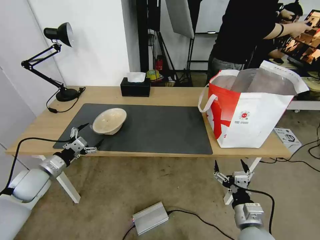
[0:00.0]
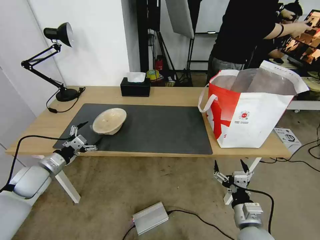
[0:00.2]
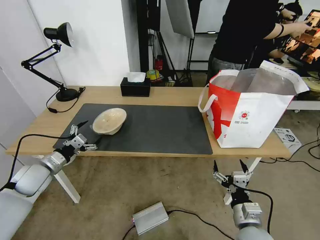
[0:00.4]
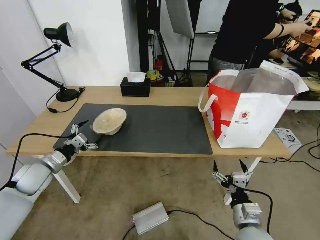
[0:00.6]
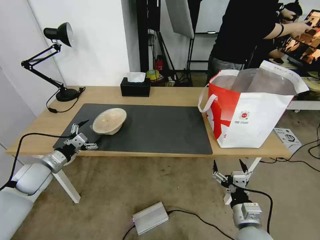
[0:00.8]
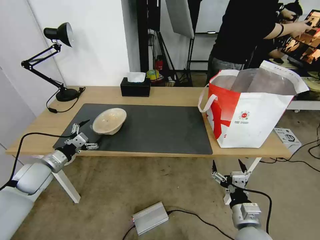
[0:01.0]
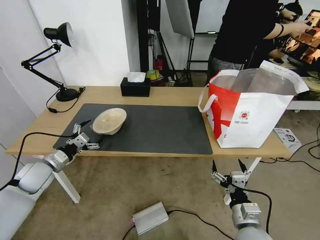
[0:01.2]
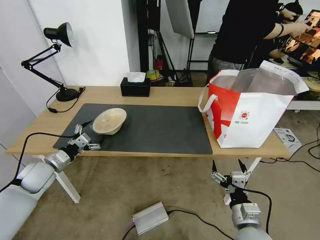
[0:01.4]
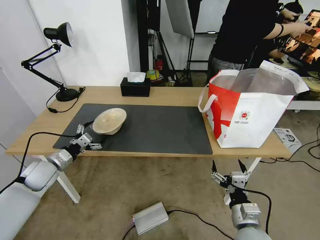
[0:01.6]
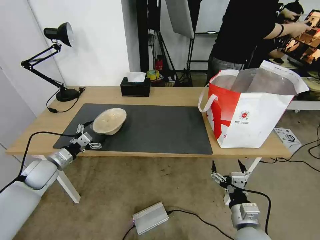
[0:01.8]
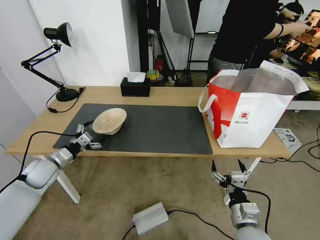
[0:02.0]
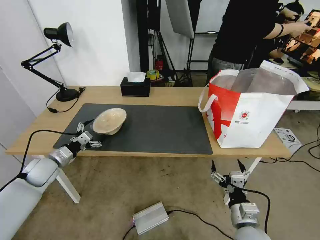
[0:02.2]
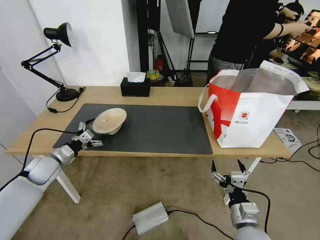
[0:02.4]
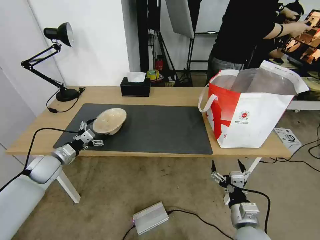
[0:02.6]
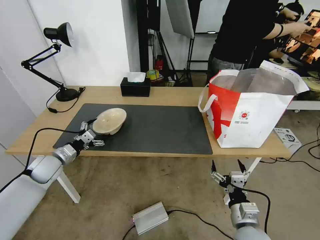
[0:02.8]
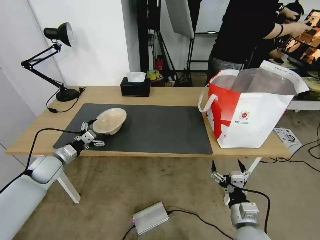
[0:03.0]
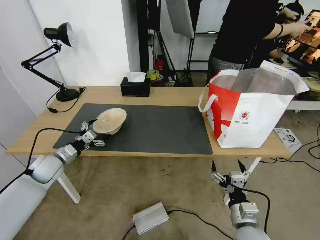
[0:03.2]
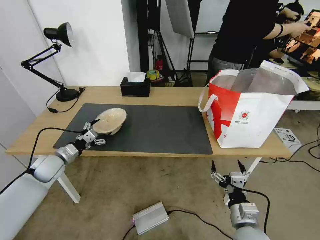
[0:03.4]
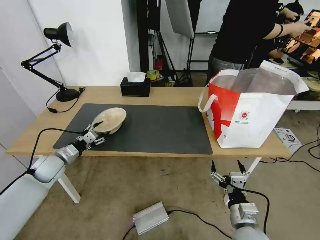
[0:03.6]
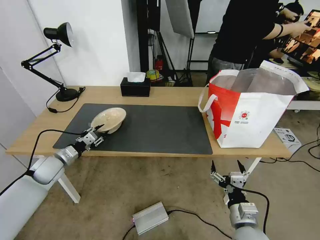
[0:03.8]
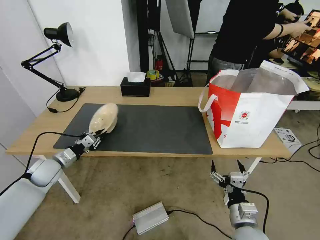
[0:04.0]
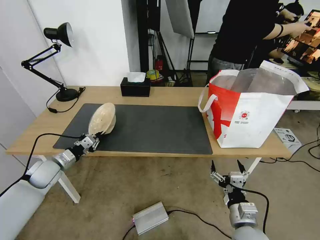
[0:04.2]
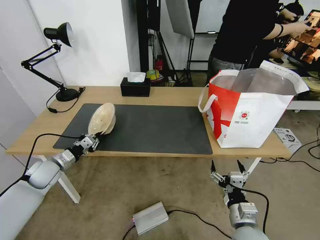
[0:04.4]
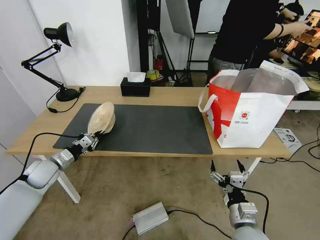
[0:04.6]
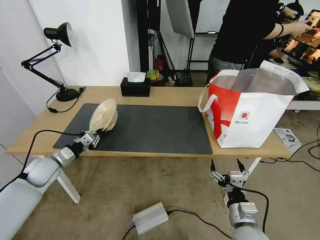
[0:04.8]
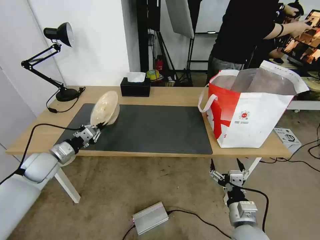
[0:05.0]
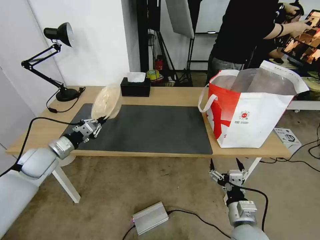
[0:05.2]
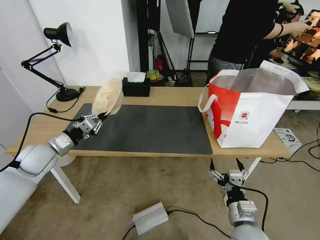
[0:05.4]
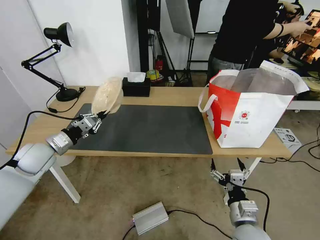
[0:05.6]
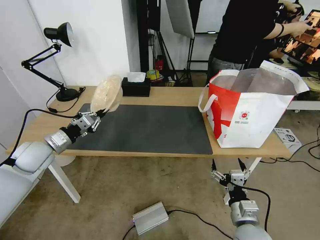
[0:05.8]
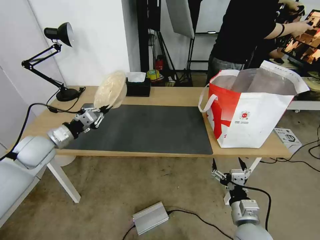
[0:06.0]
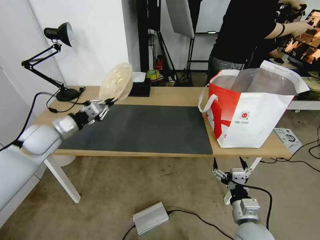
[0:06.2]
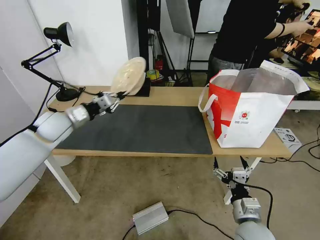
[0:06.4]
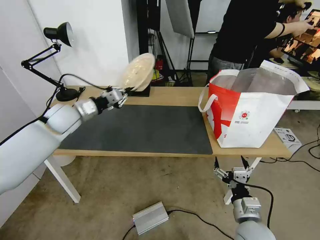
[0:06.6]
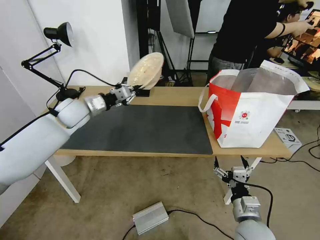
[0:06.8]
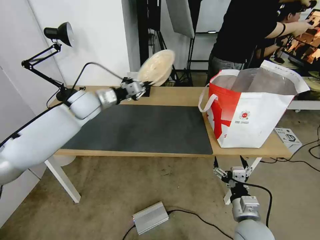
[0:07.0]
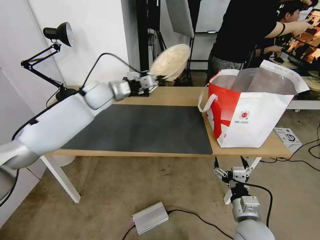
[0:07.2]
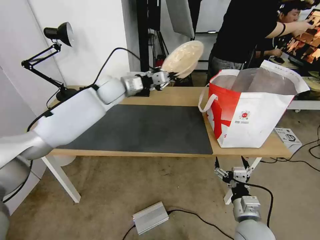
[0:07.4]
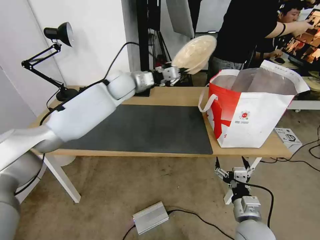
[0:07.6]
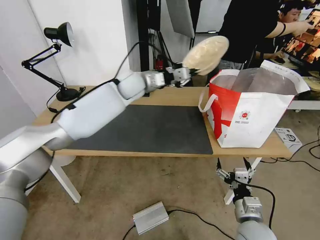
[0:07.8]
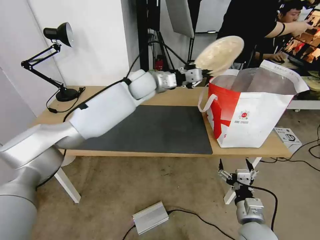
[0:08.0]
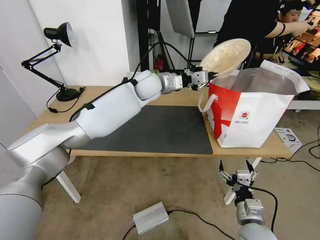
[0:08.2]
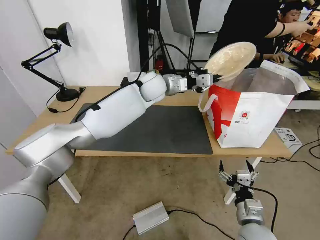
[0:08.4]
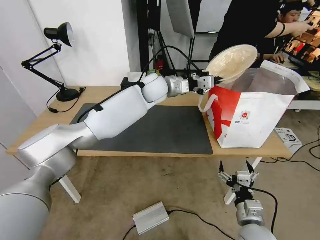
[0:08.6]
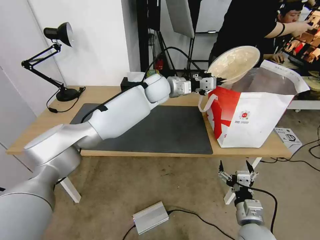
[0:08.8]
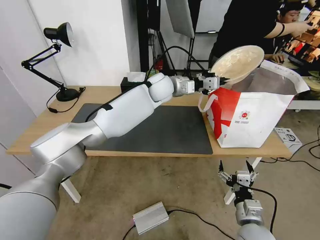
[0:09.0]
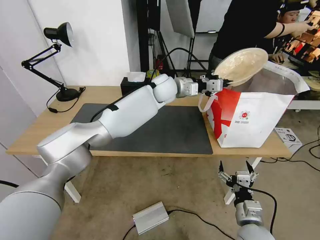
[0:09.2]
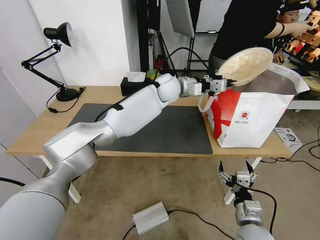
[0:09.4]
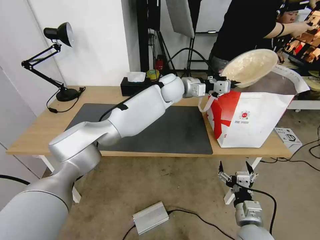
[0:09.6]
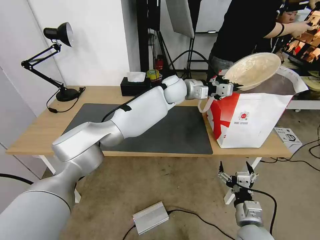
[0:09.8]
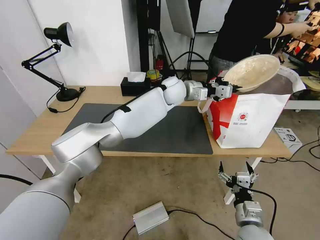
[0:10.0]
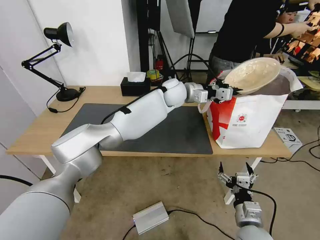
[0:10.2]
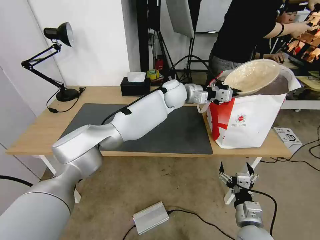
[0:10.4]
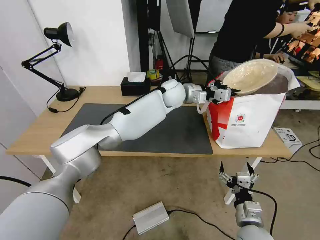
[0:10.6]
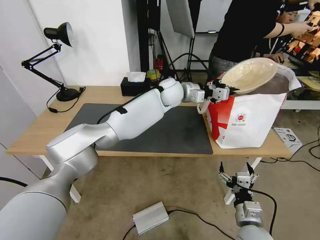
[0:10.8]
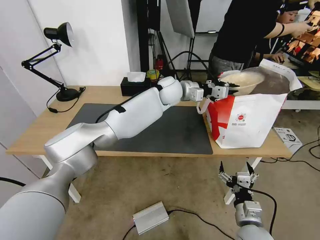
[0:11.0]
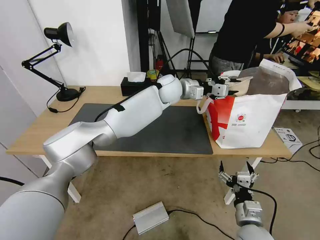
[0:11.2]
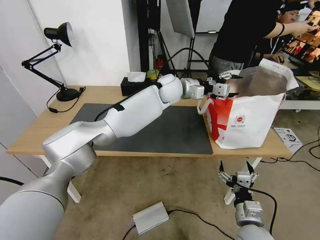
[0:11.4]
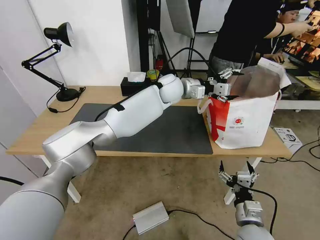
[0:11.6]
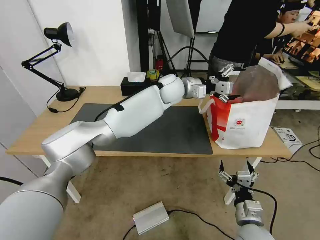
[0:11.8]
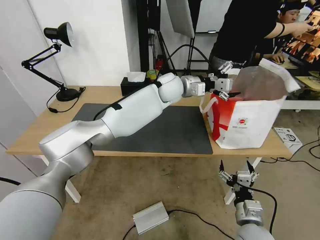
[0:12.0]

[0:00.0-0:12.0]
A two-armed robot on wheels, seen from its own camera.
Task of the whole recording: Pick up the trash from the table and place it into the takeout bag.
0:00.0 to 0:01.6: The grippers move only a little.
0:01.6 to 0:03.0: There are only small adjustments of the grippers.
0:03.0 to 0:04.4: The left gripper closes up.
0:04.4 to 0:06.0: The left gripper heads upward, covering some 10 cm.
0:06.0 to 0:07.6: The left gripper moves to the right, forward and upward, some 35 cm.
0:07.6 to 0:09.0: The left gripper moves to the right, roughly 15 cm.
0:09.0 to 0:10.4: The left gripper shifts by approximately 5 cm.
0:10.4 to 0:12.0: The left gripper opens its fingers.

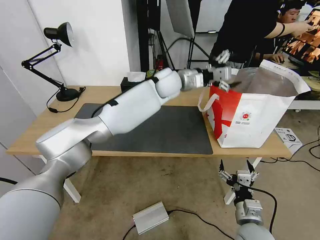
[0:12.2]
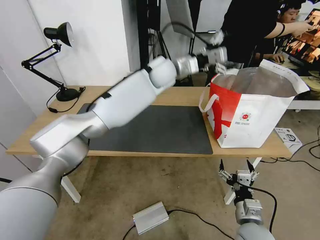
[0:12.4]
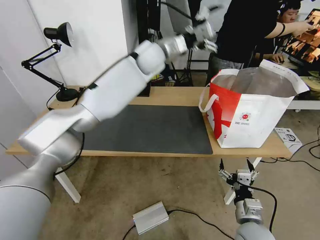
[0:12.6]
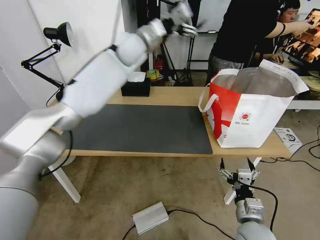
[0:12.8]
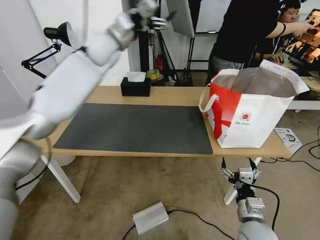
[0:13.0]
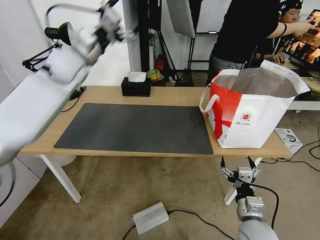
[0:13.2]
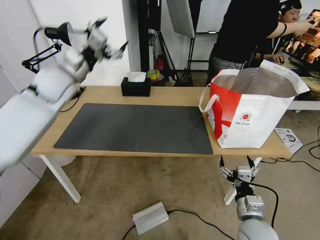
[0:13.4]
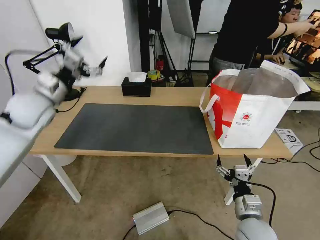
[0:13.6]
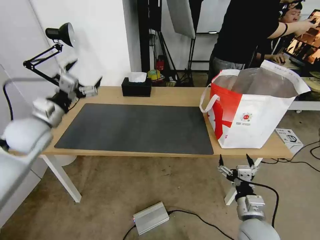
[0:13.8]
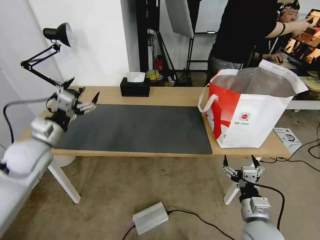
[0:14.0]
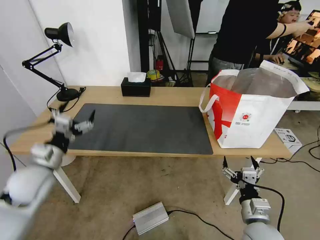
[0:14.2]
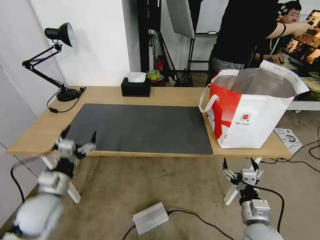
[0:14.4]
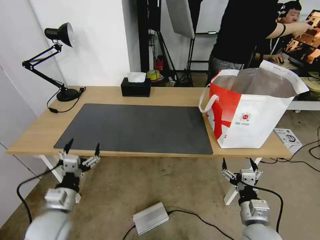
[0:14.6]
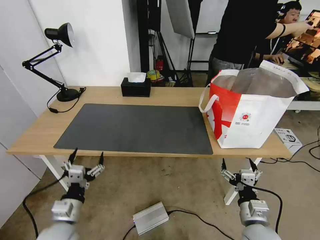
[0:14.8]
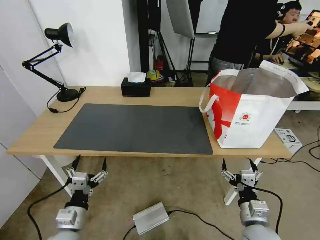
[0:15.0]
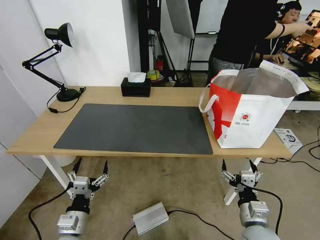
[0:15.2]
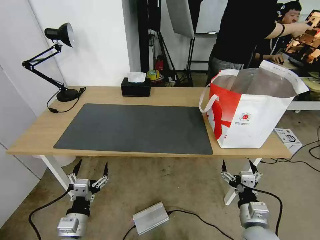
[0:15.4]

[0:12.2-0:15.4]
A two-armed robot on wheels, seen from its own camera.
Task of the whole recording: Pick up the trash from the table and place it into the takeout bag.
0:12.2 to 0:13.8: The left gripper travels to the left and backward by about 40 cm.
0:13.8 to 0:15.4: The left gripper moves backward, downward and to the right, about 35 cm.

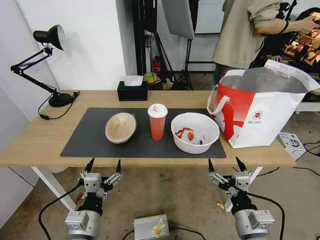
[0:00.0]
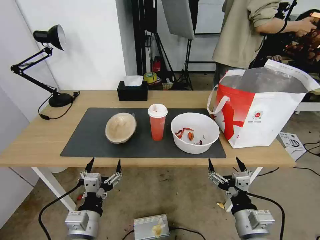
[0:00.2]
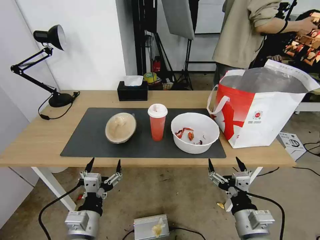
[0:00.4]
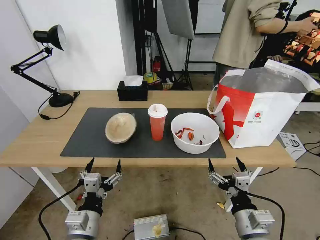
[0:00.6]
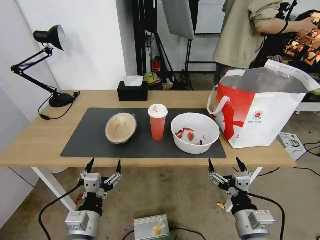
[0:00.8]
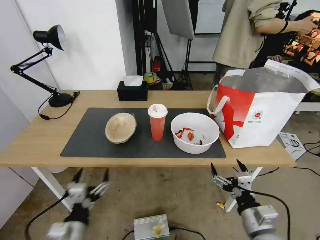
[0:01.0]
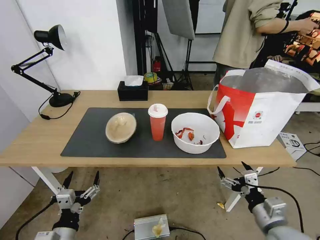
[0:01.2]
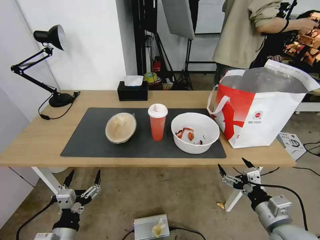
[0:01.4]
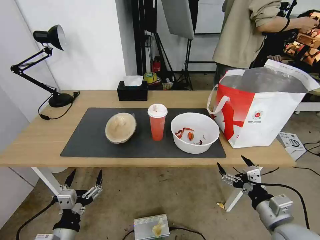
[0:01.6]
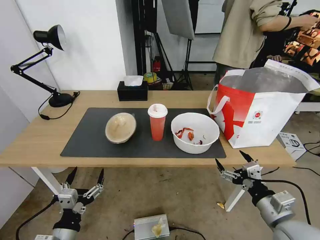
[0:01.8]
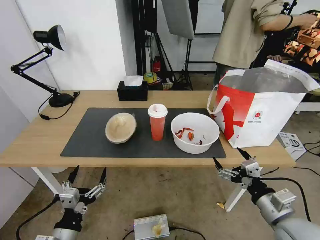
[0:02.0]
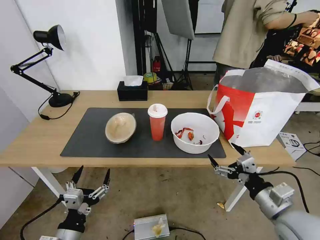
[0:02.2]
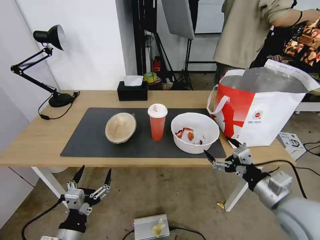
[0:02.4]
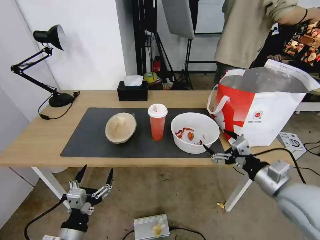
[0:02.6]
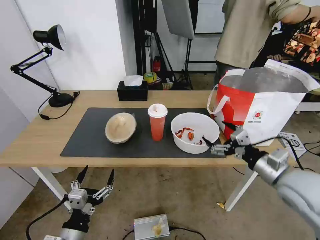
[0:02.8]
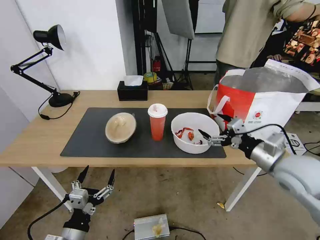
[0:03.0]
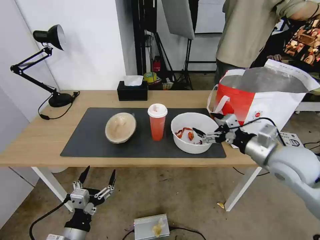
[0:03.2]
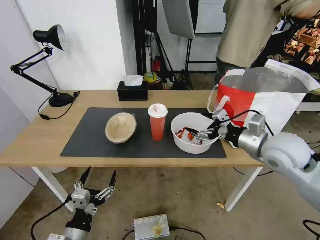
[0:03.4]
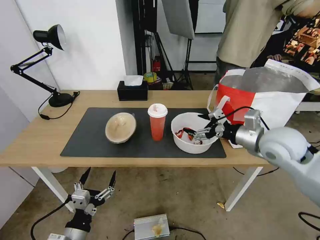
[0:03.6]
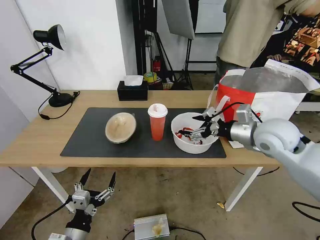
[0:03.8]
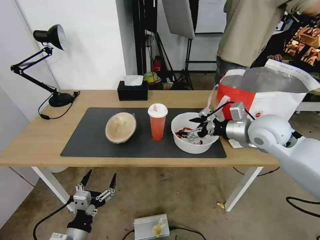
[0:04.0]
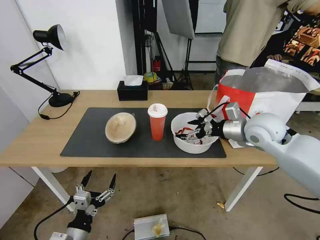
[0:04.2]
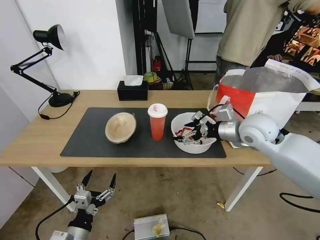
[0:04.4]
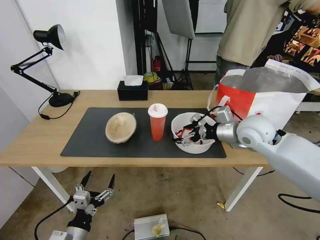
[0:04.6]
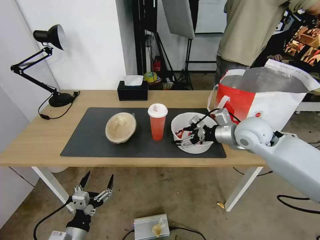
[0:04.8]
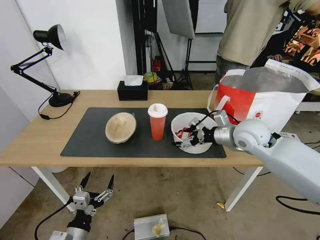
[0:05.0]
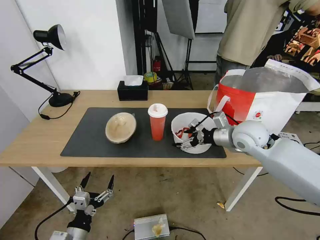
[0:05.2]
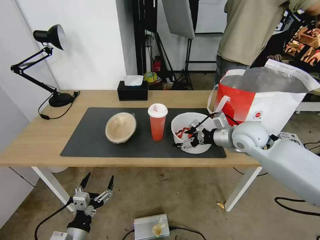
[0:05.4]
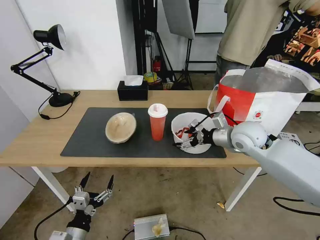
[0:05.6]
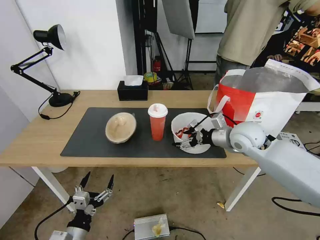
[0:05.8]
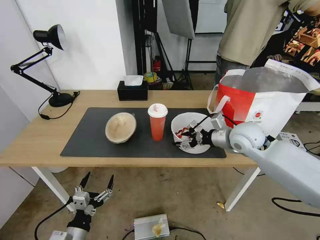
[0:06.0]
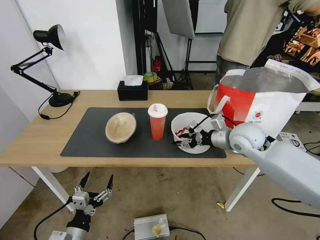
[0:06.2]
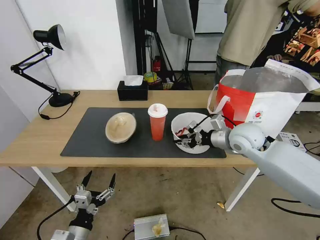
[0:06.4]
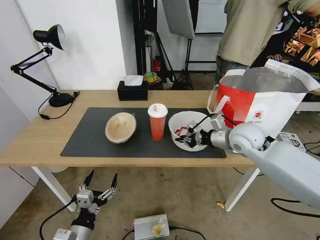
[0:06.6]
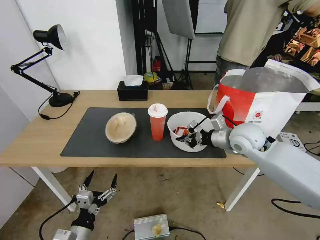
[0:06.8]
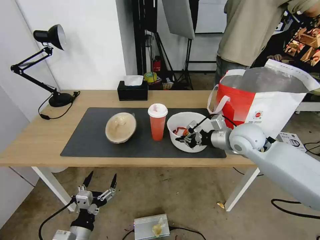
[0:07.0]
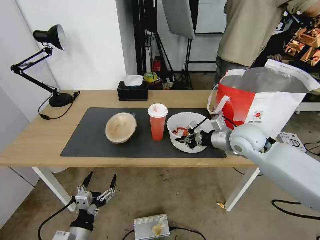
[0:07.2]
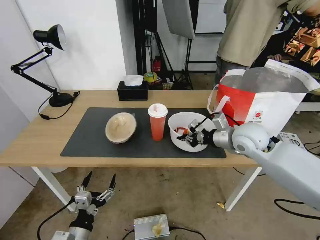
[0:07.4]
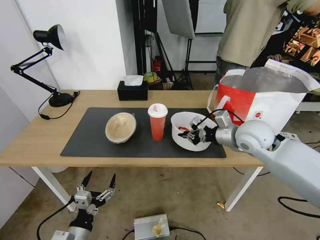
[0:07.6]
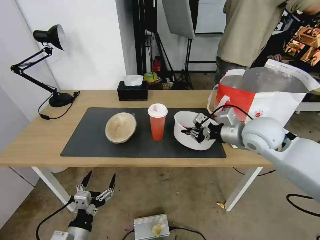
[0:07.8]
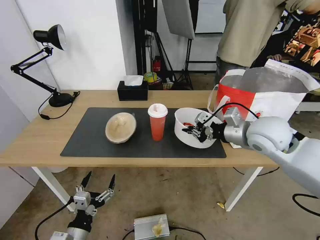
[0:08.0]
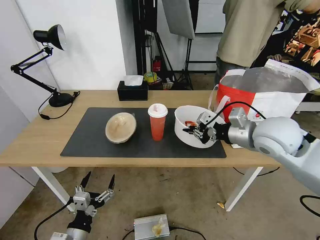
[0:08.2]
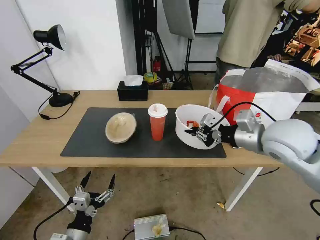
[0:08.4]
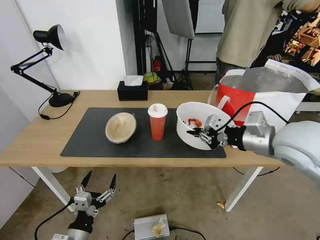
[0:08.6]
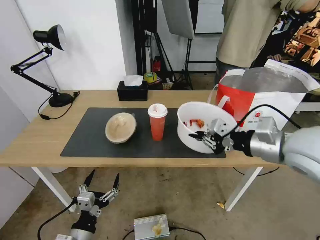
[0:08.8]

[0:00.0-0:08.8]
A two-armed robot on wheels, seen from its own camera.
Task of the whole recording: Pick up the trash from the table and place it into the takeout bag.
0:01.4 to 0:03.0: The right gripper is displaced forward and upward by about 20 cm.
0:03.0 to 0:04.4: The right gripper travels forward and to the left by some 15 cm.
0:04.4 to 0:05.8: The grippers stay close to where they were, moving slightly.
0:05.8 to 0:07.4: The right gripper closes up.
0:07.4 to 0:08.8: The right gripper moves backward and upward, roughly 15 cm.
